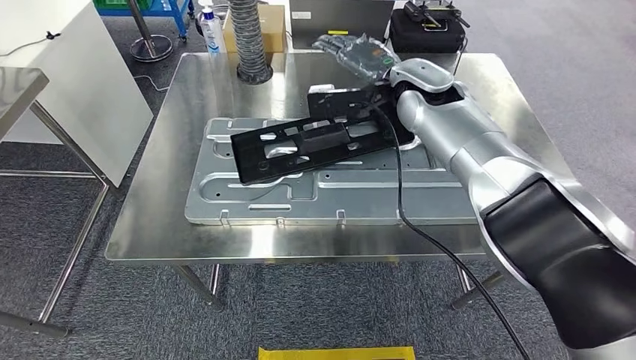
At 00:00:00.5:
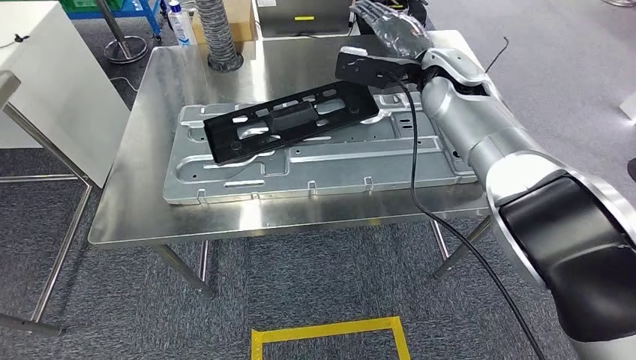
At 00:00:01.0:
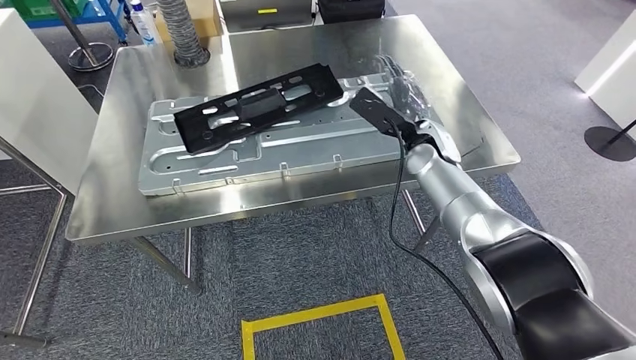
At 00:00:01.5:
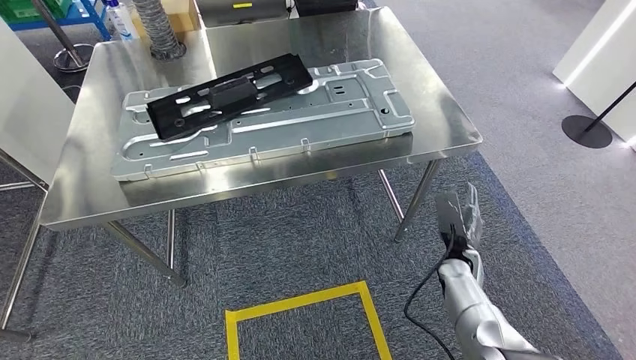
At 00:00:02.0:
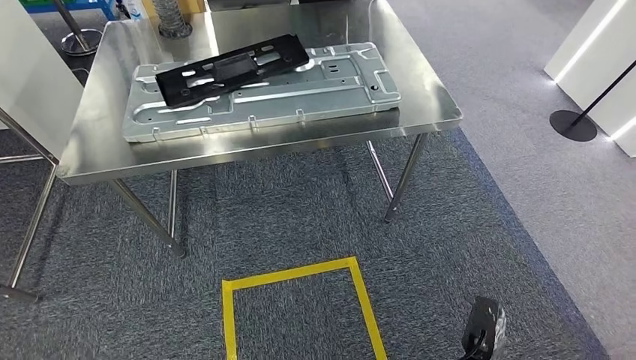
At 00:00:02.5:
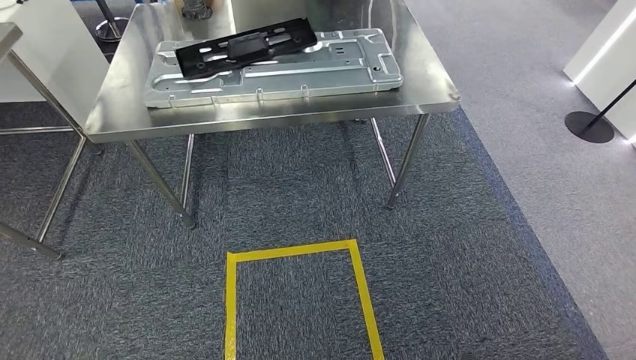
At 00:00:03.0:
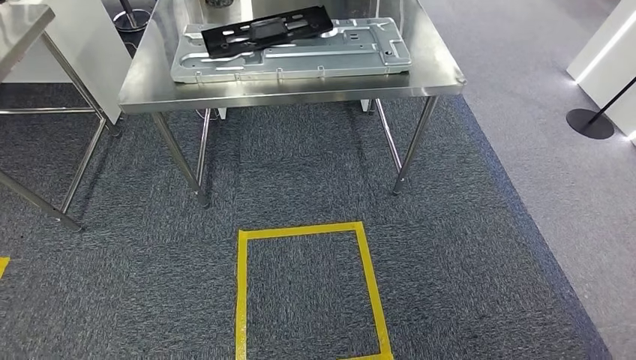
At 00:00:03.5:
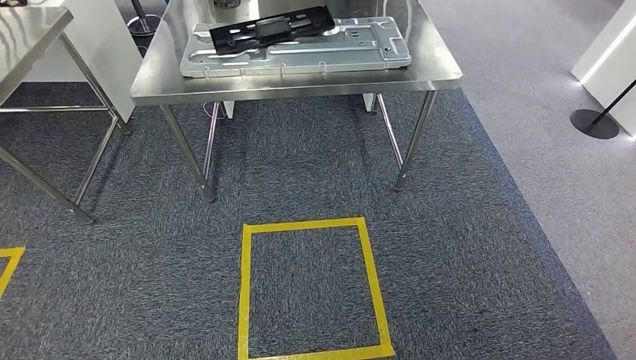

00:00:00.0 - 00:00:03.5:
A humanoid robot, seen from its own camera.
Step, 00:00:00.5 - 00:00:03.5: Move to the initial position of the shelf.

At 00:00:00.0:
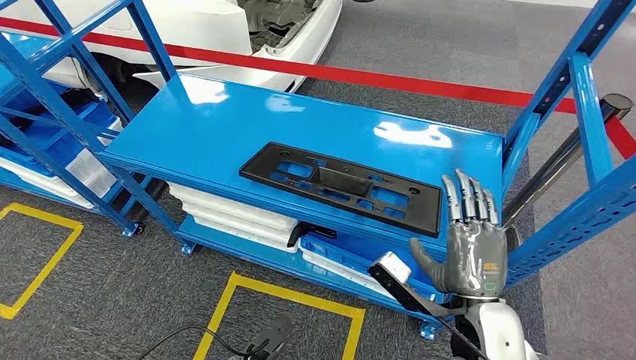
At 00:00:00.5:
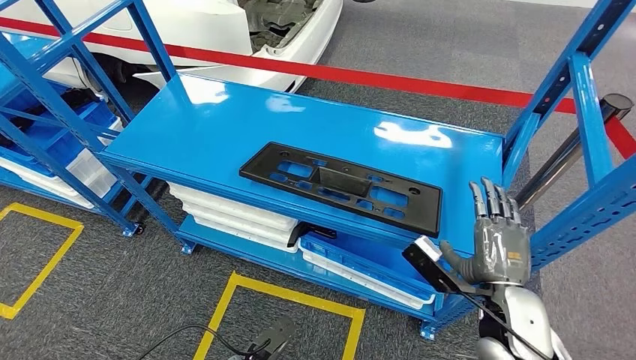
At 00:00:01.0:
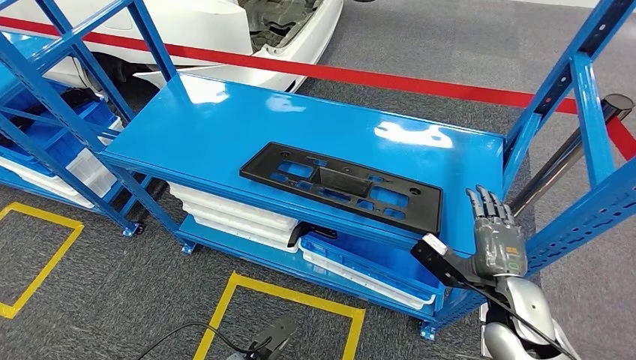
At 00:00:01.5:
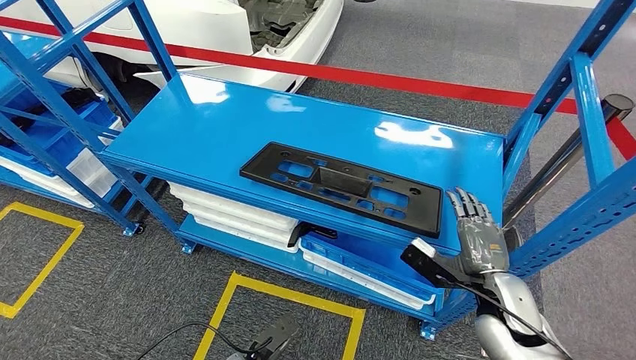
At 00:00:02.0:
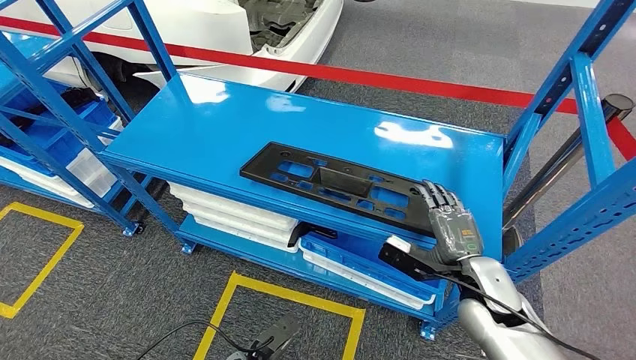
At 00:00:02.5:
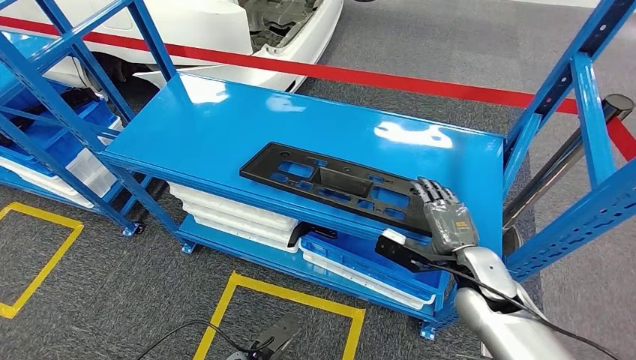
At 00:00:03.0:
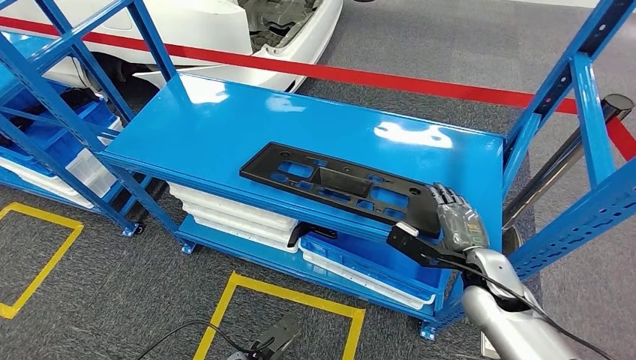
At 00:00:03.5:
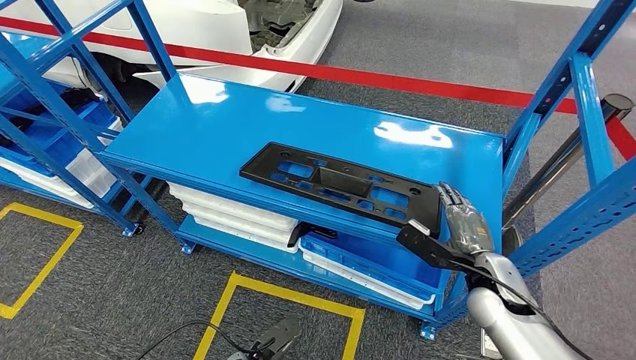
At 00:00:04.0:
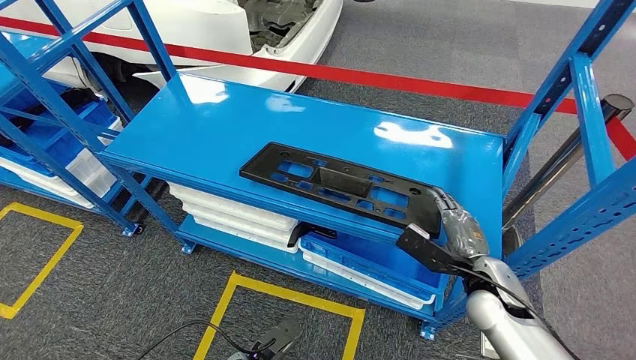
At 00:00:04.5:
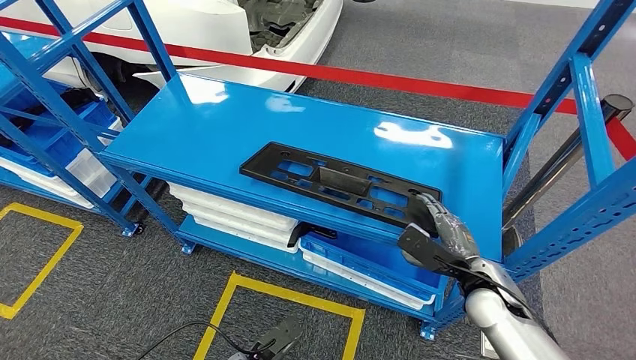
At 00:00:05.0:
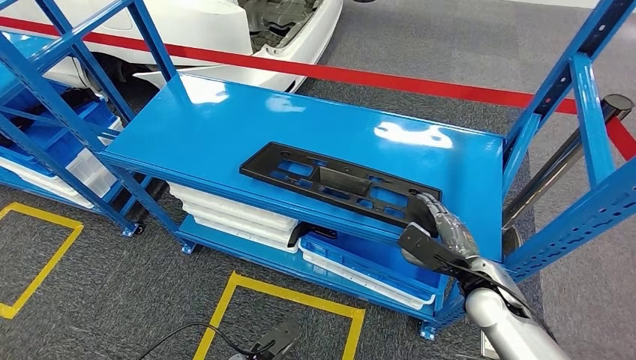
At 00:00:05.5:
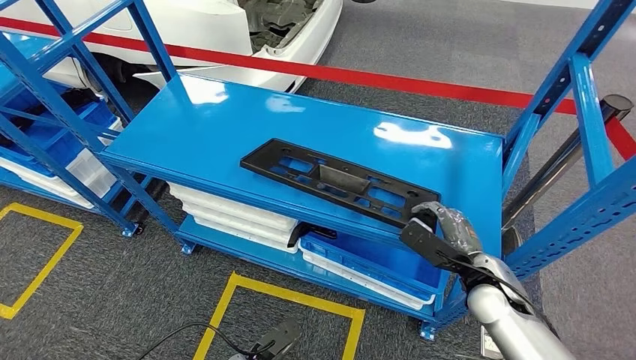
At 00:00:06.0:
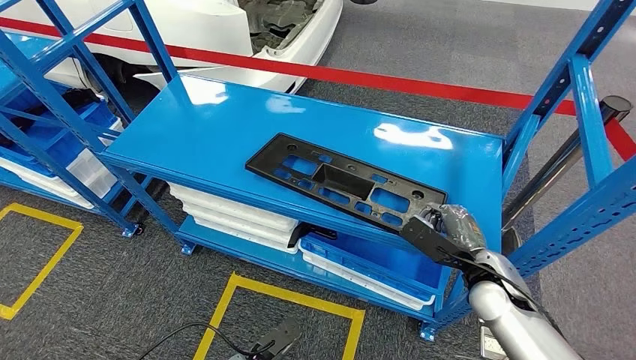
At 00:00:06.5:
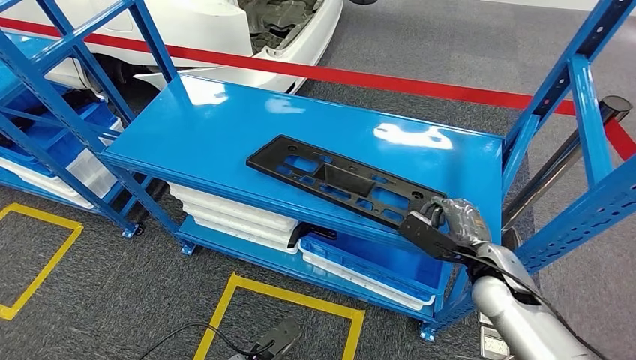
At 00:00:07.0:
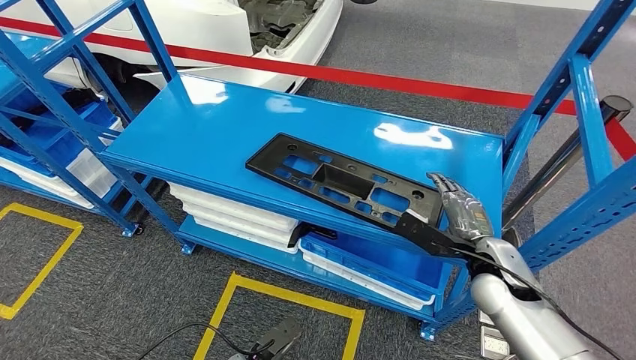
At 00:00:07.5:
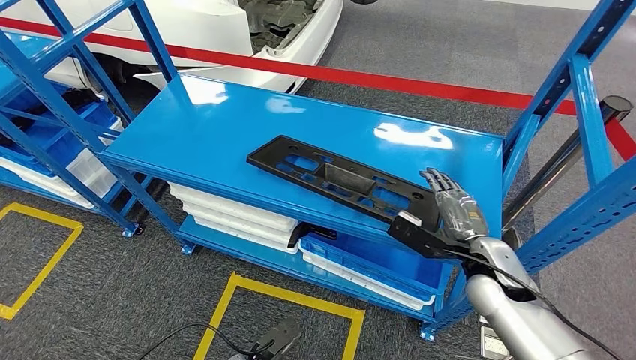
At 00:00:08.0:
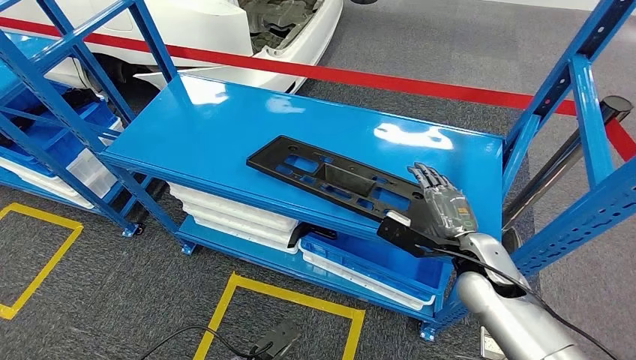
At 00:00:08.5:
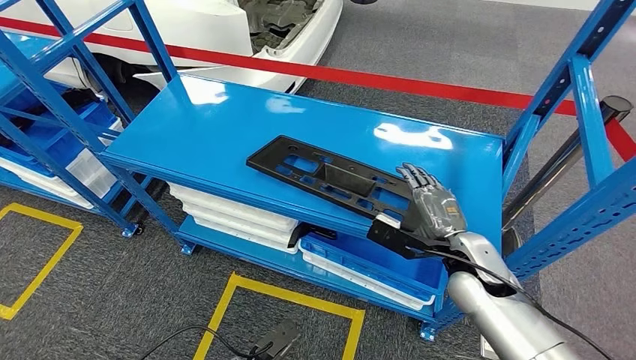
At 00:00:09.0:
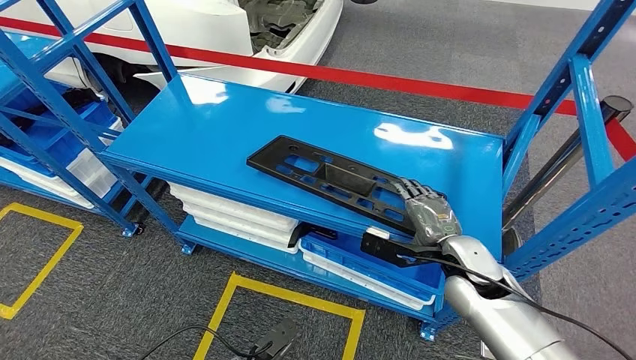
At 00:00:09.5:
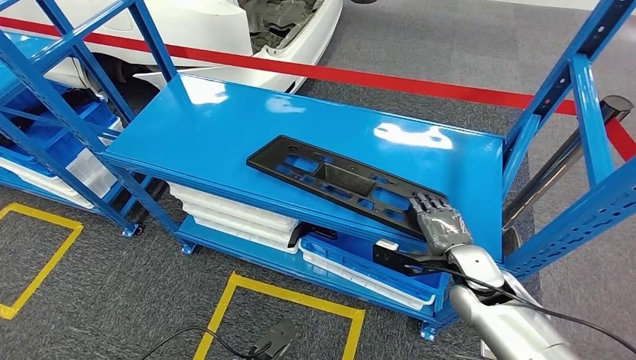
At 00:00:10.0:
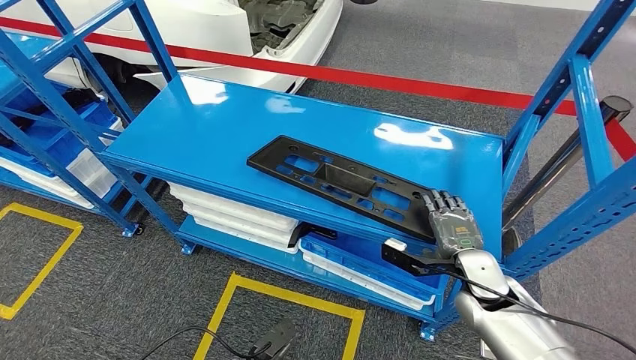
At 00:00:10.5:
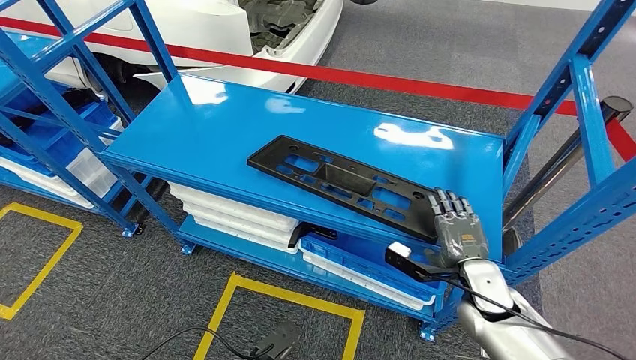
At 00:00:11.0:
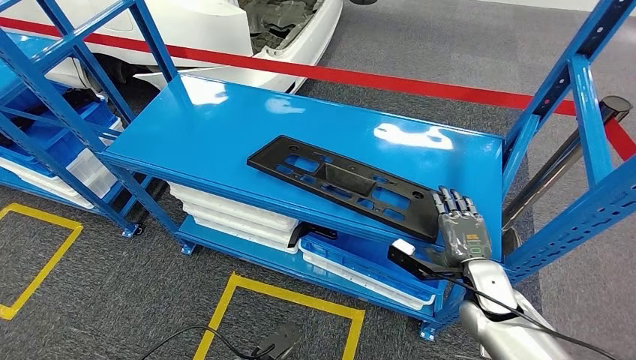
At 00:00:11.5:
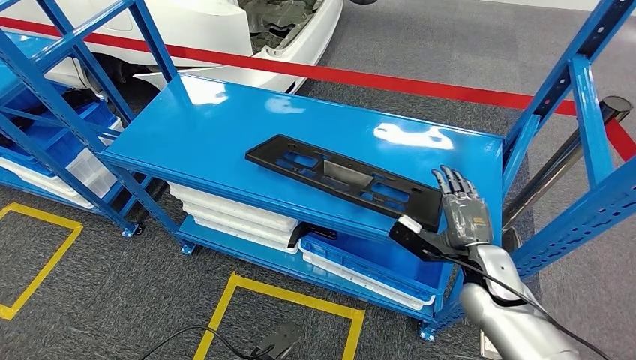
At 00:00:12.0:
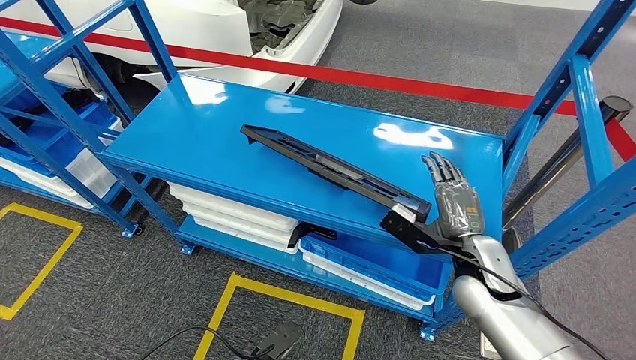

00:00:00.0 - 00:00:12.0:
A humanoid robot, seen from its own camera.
00:00:02.0 - 00:00:04.0: The hands move only a little.
00:00:04.0 - 00:00:08.0: The hands make only small movements.

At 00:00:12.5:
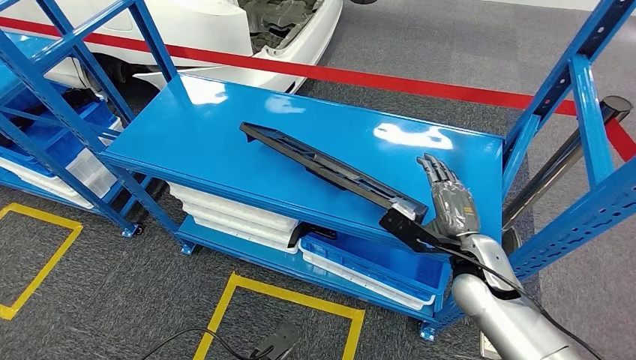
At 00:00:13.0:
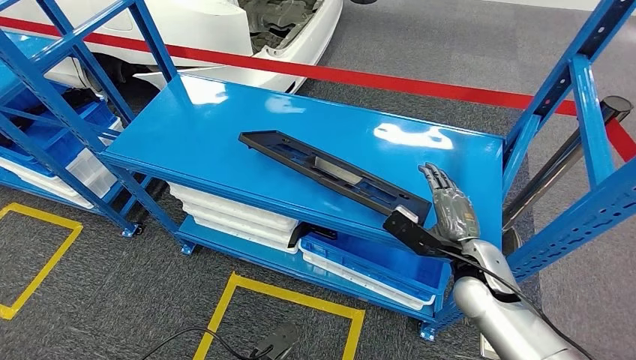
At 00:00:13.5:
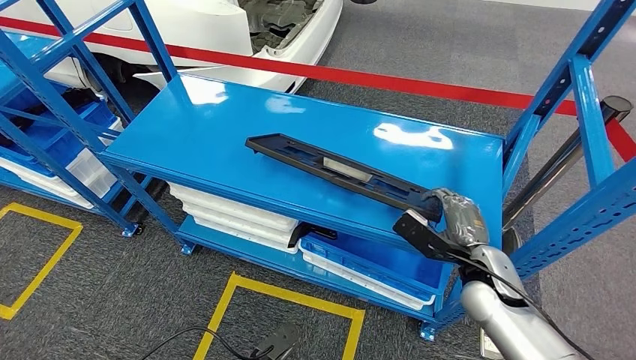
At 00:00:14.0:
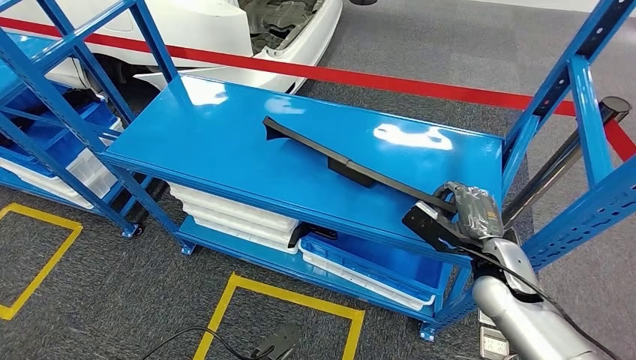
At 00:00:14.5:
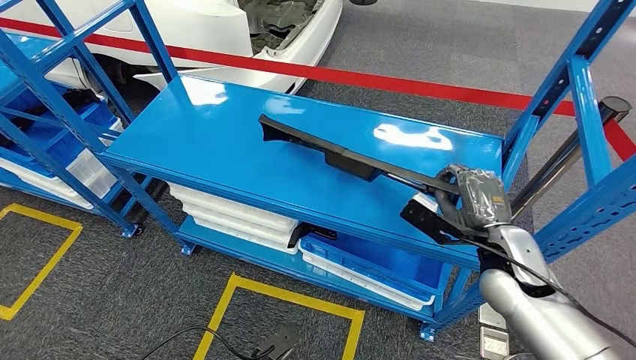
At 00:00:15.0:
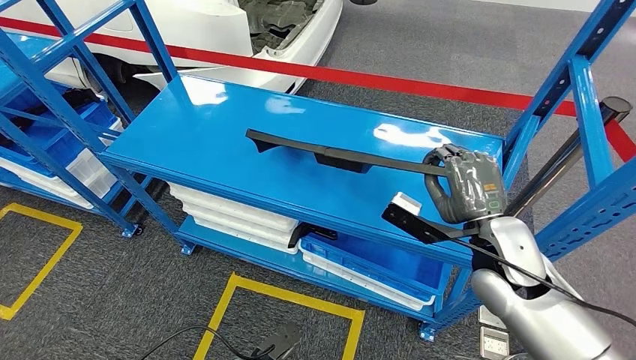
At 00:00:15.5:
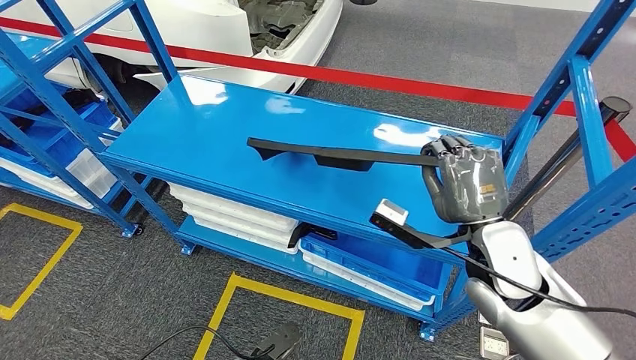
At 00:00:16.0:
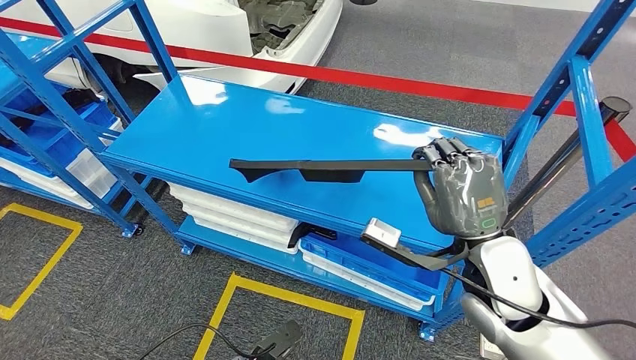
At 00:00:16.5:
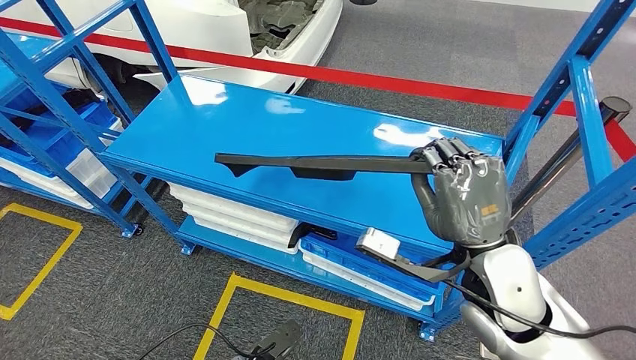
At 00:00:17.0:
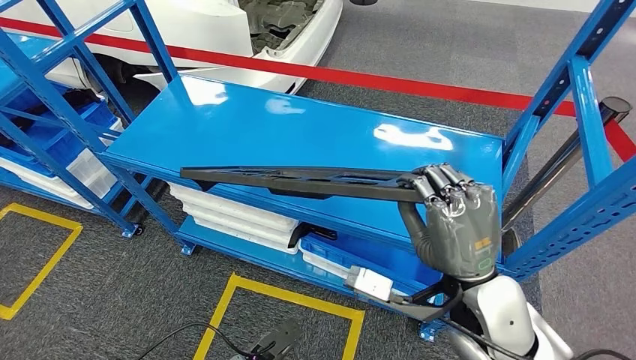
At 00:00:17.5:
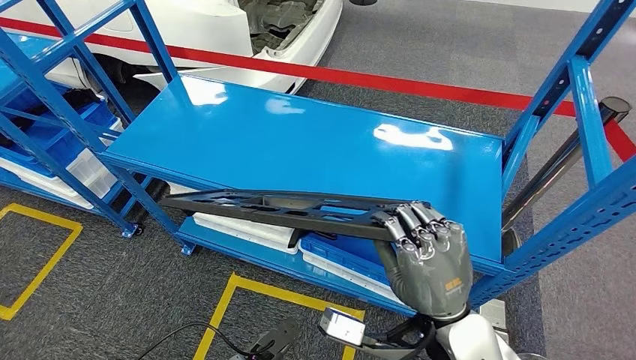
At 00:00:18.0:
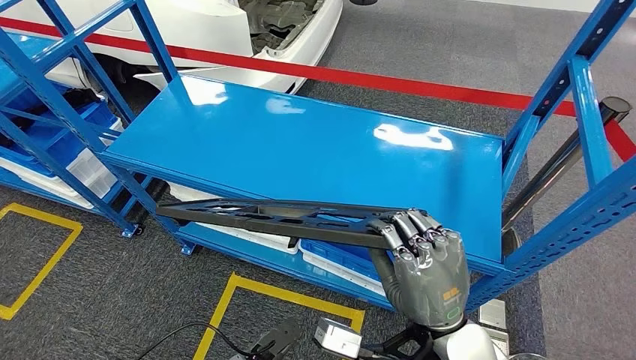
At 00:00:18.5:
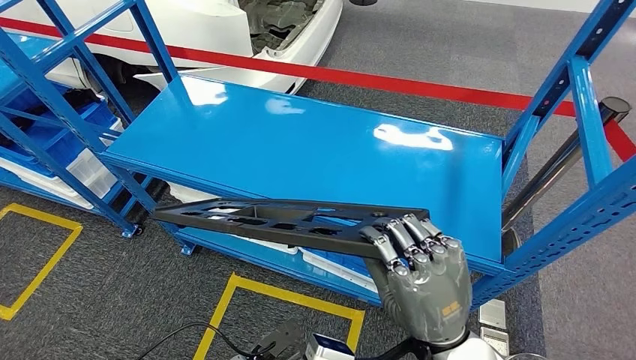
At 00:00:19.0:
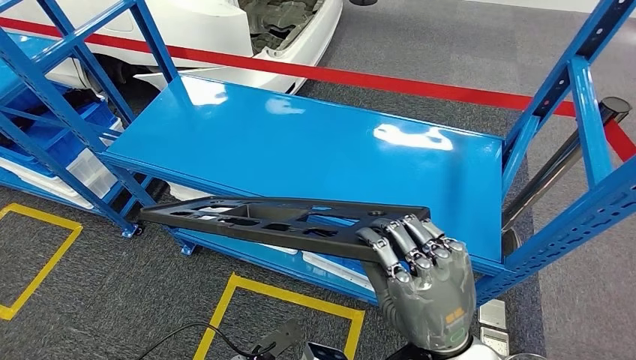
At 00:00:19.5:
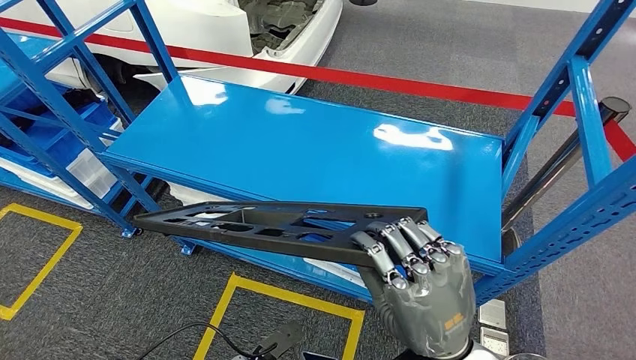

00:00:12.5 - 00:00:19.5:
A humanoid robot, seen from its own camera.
00:00:12.5 - 00:00:14.5: The hands move only a little.
00:00:14.5 - 00:00:16.0: The right hand is displaced backward and upward by roughly 10 cm.
00:00:16.0 - 00:00:17.5: The right hand heads backward, covering about 10 cm.
00:00:17.5 - 00:00:19.5: The right hand moves approximately 5 cm.
